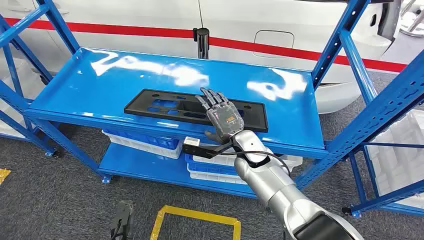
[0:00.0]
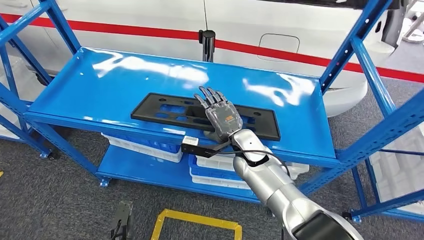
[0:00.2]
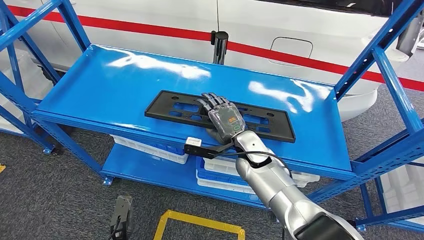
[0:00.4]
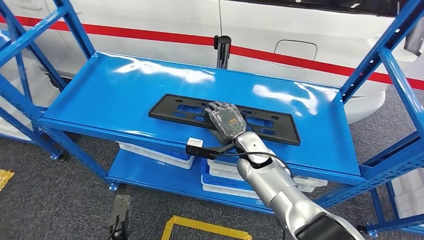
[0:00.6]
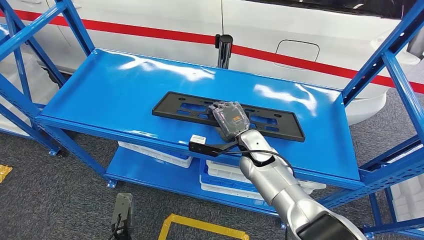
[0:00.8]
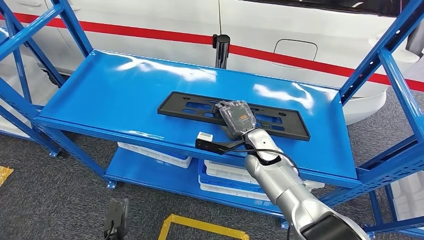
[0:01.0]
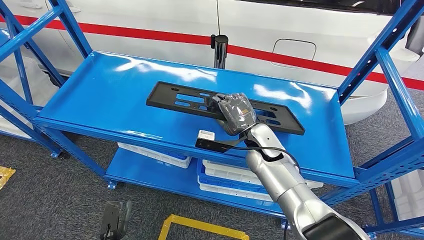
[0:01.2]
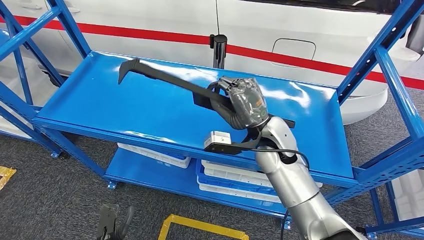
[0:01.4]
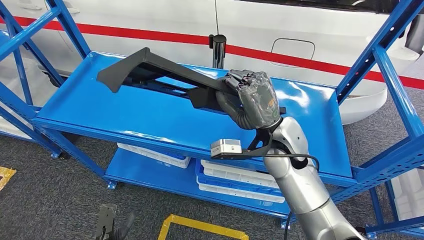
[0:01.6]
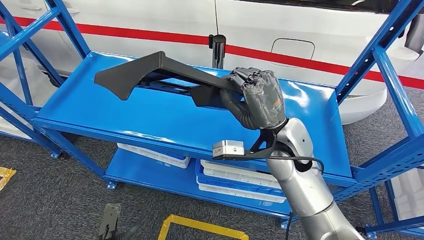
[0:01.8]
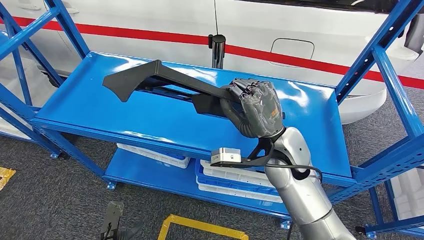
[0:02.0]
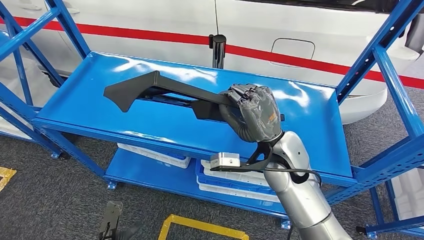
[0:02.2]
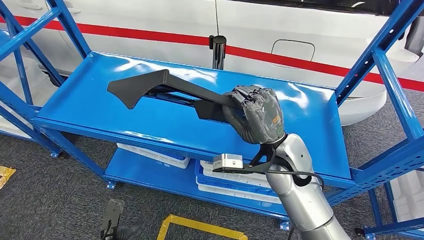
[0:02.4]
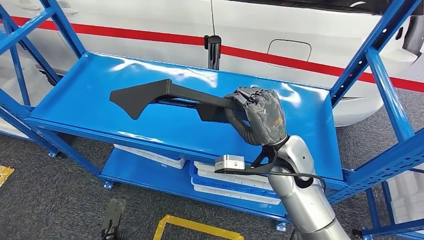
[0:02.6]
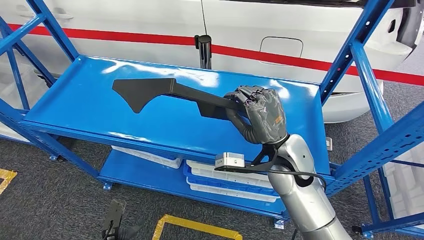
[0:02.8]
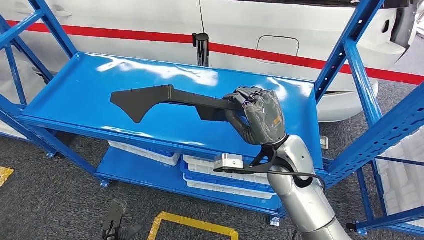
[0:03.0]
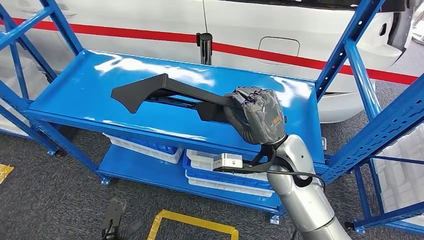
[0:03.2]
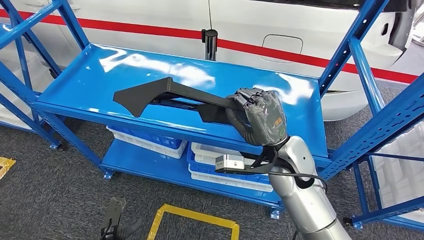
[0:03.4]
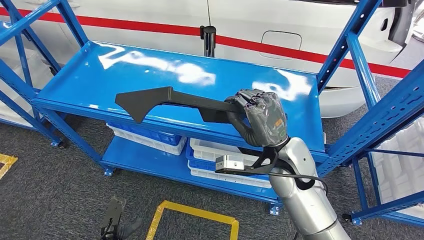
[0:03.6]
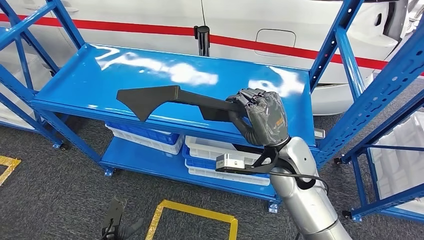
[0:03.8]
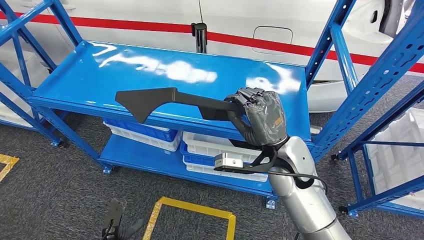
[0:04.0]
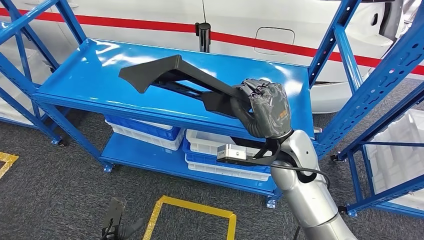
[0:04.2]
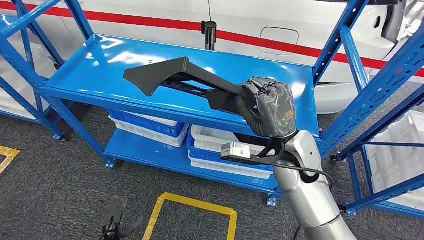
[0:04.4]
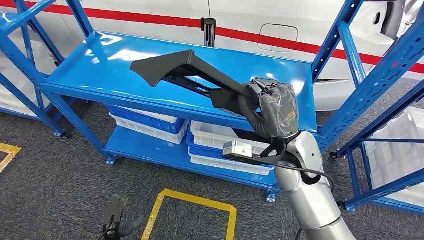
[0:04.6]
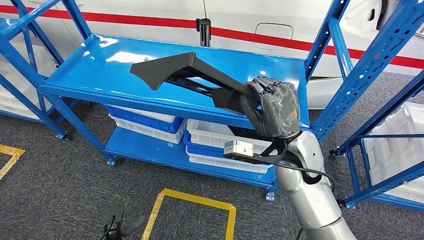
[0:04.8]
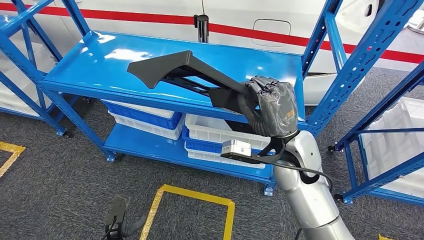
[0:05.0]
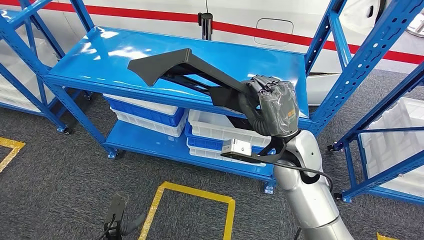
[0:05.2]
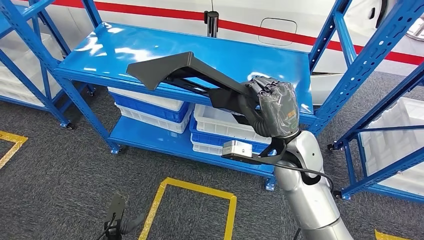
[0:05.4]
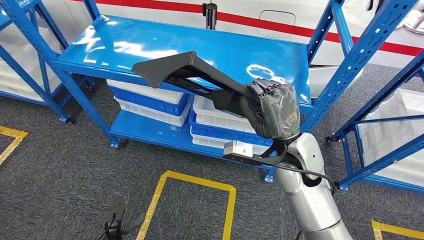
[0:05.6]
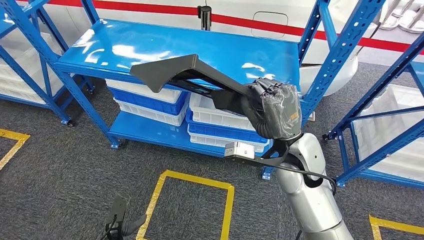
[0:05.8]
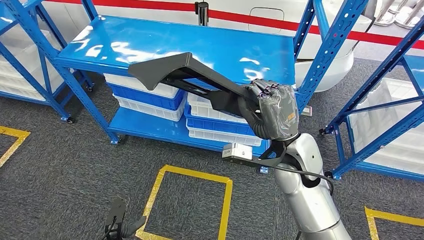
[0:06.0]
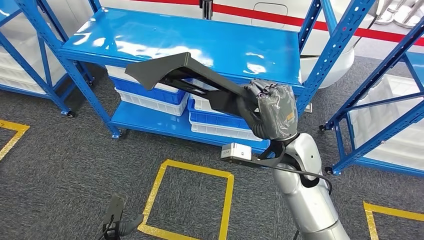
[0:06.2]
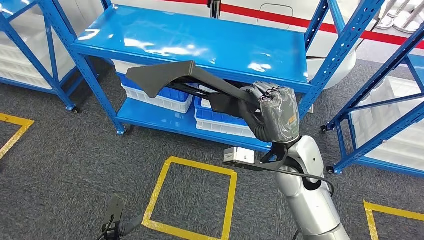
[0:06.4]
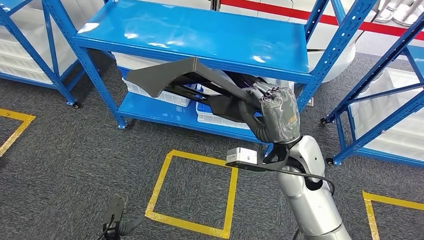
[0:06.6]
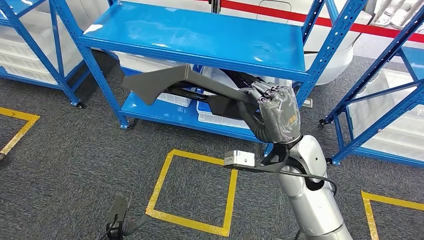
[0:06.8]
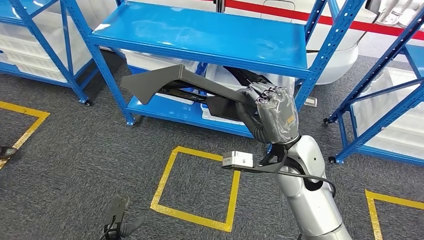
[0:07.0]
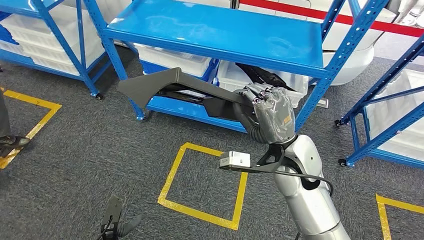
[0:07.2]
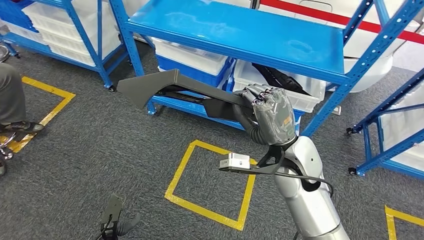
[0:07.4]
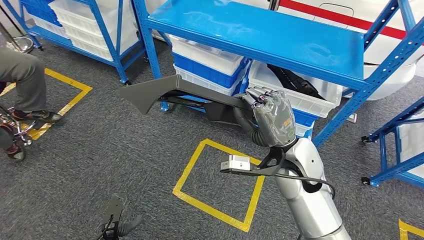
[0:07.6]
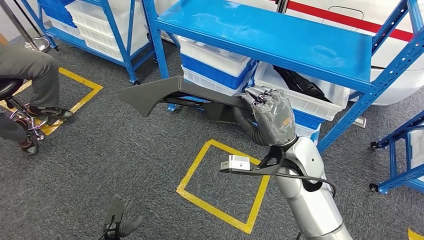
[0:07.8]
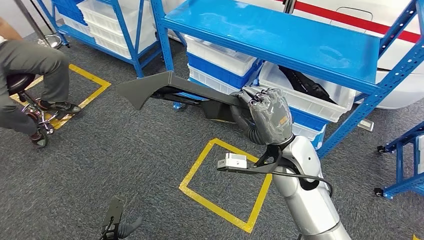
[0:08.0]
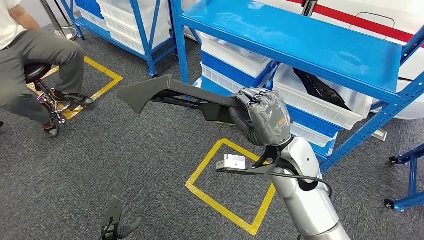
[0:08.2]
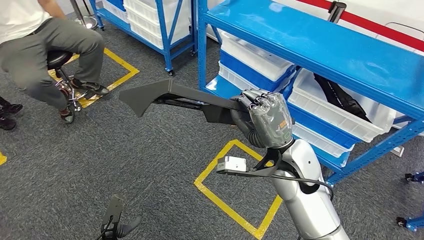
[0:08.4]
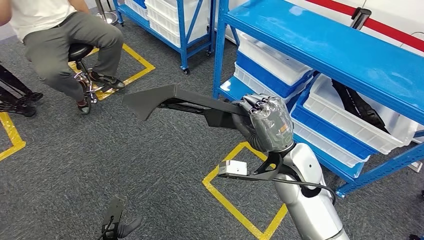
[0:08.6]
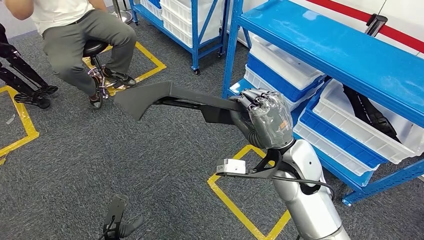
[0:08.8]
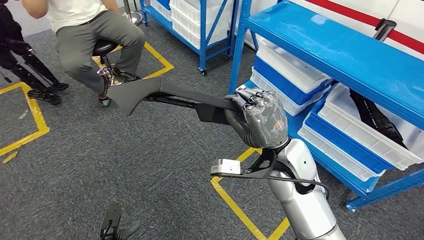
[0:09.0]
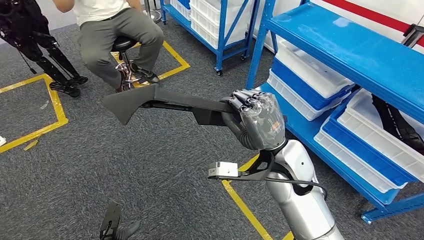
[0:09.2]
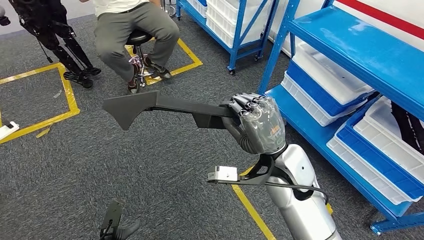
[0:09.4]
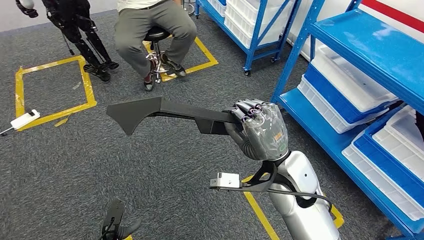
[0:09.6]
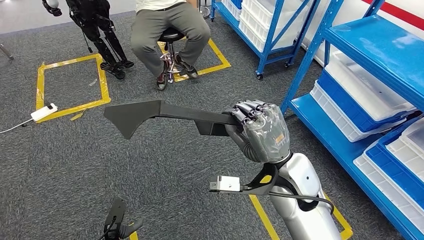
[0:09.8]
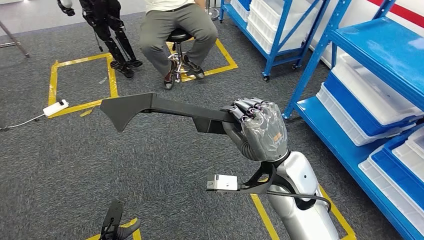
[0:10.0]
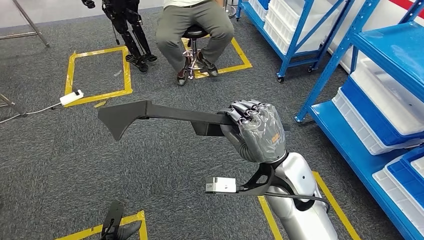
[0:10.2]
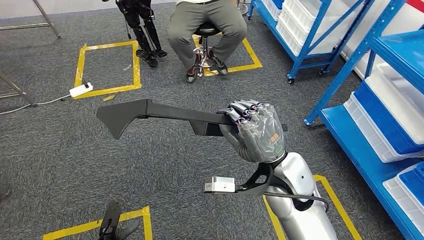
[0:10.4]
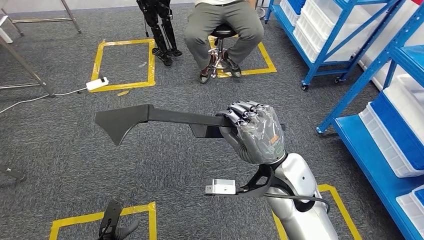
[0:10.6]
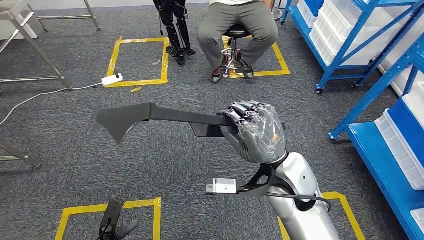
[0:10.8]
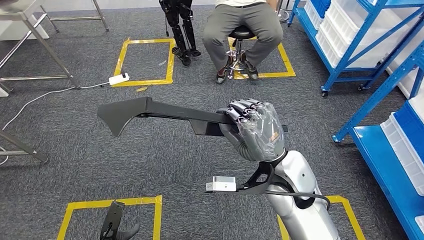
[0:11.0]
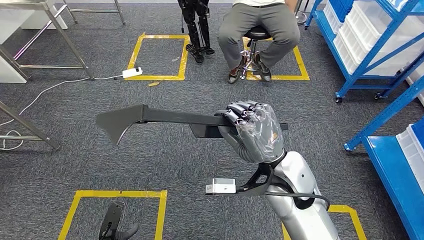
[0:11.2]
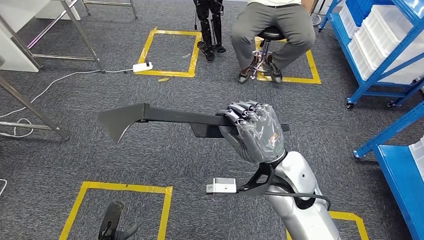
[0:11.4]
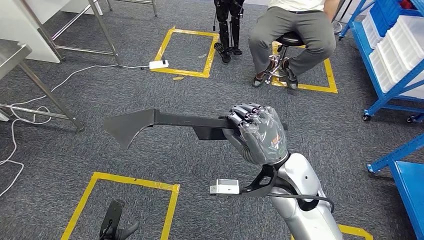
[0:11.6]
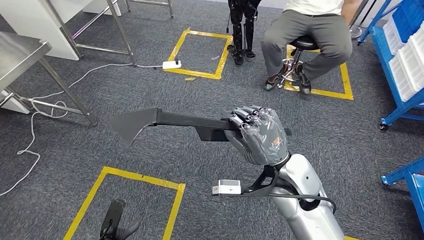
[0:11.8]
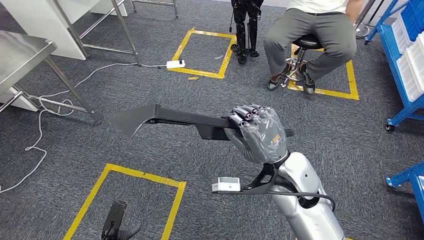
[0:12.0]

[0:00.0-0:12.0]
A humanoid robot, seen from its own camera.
Step, 0:00.0 to 0:07.4: Pick up the large material from the shelf.

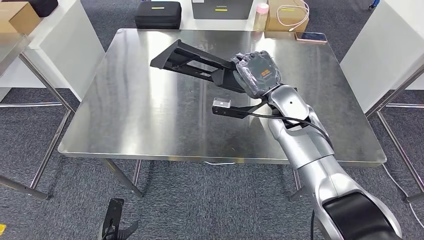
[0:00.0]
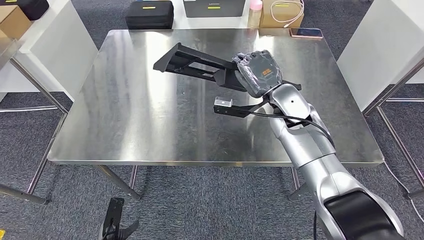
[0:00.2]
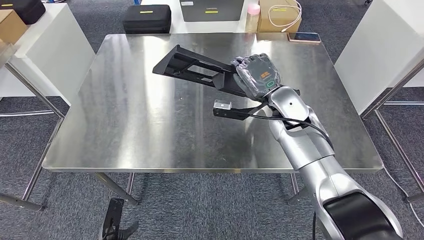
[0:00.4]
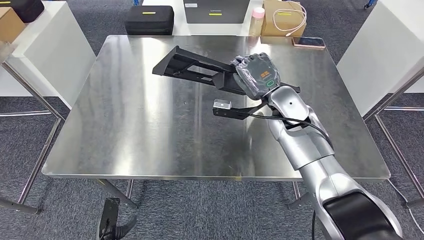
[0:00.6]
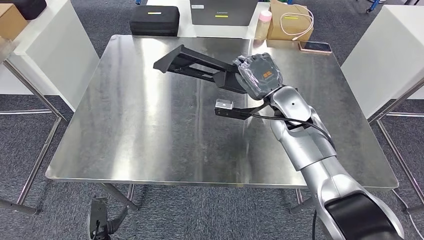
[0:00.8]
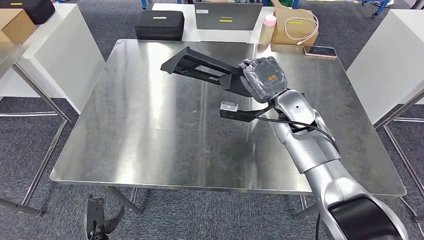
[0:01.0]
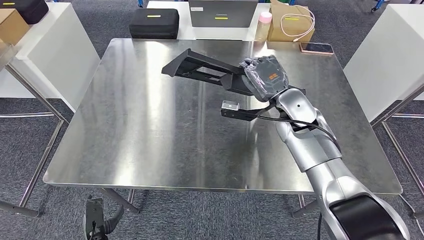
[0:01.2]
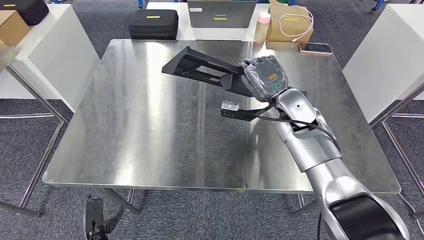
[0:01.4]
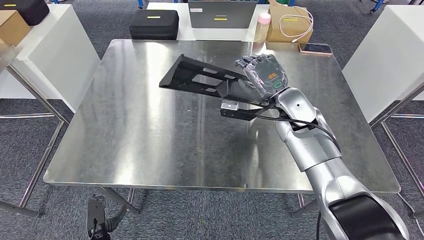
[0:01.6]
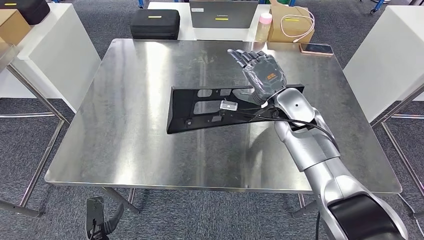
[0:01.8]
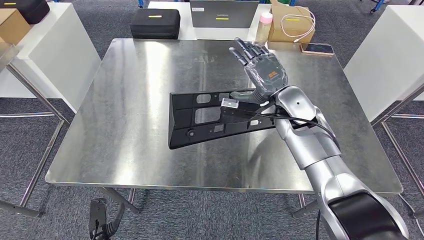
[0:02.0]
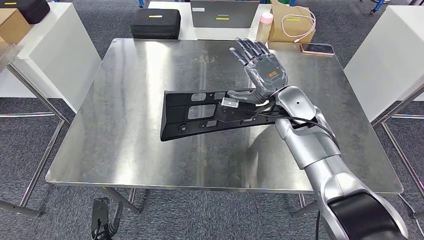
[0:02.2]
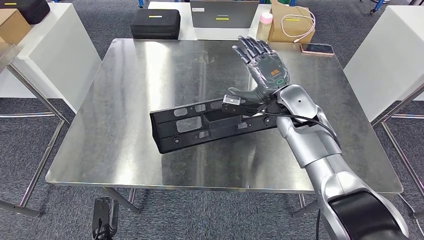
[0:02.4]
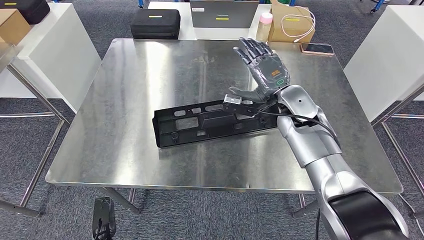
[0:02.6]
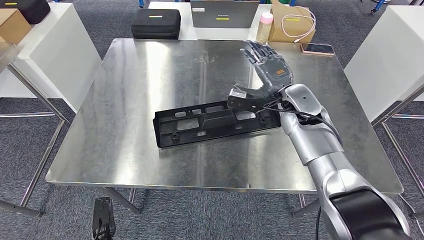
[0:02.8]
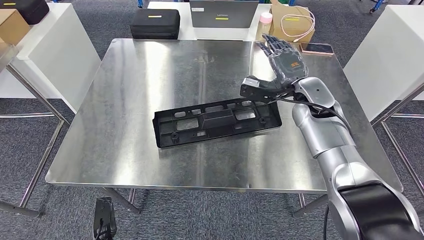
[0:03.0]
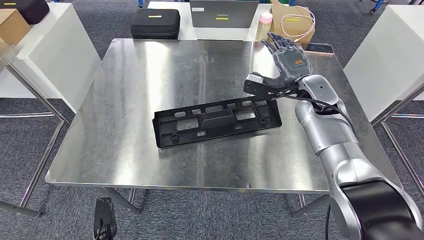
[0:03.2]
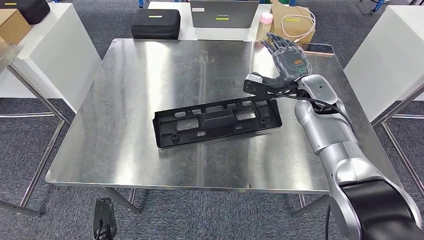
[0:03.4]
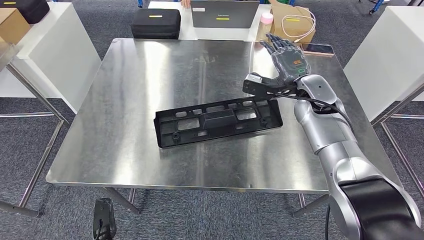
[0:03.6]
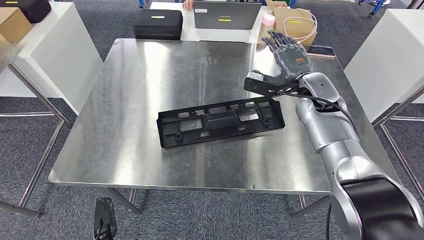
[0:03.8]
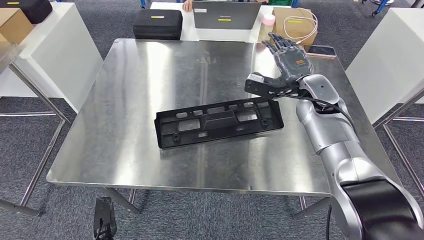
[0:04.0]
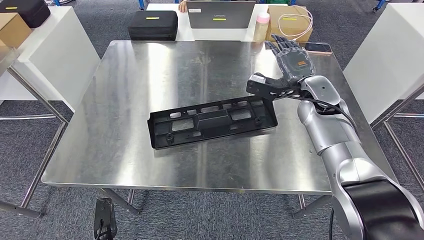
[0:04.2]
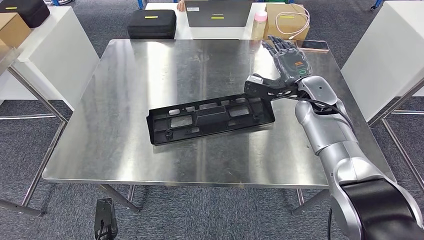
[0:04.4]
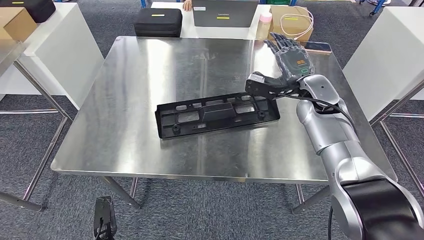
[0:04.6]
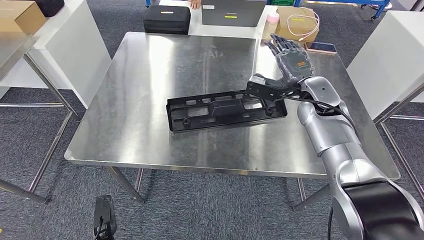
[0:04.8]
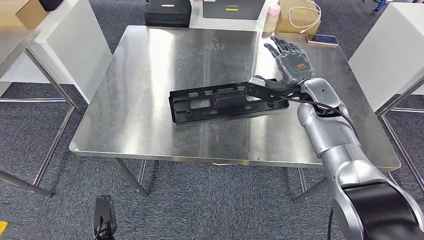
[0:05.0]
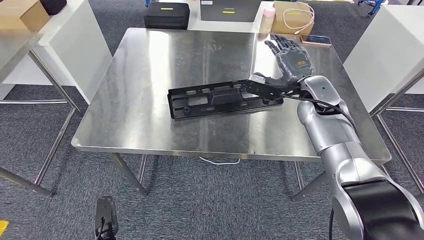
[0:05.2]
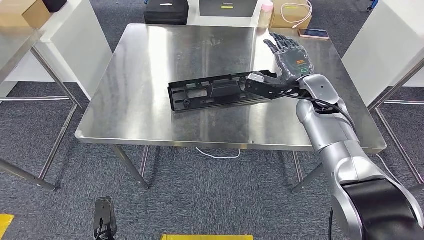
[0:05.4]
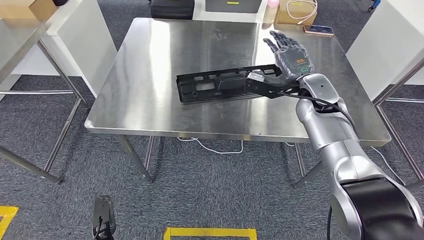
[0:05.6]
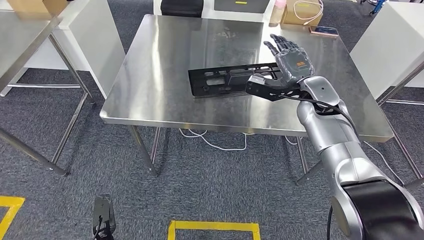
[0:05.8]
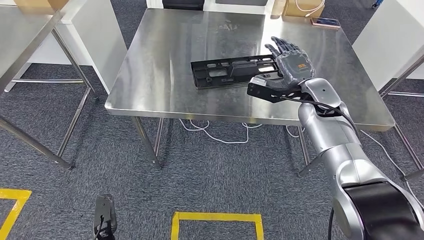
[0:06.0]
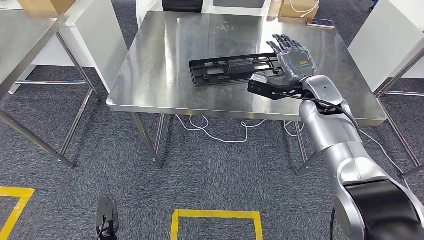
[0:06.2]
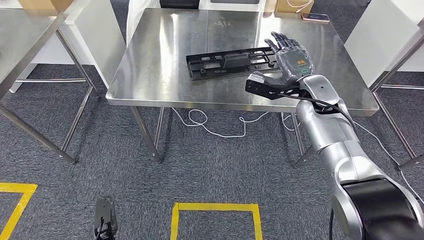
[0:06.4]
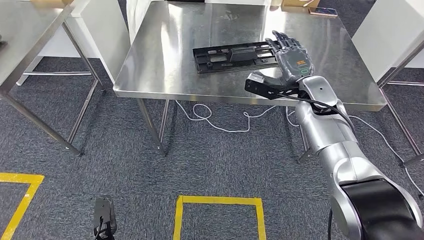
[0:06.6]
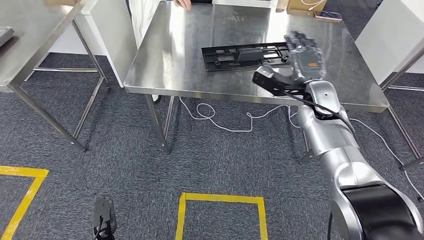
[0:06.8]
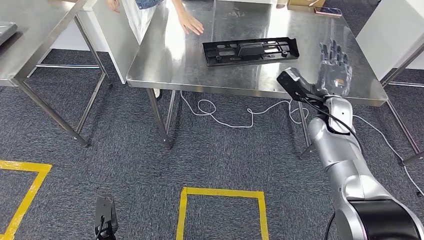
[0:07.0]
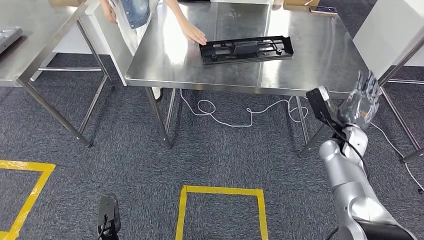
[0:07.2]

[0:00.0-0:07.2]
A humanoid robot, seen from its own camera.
Step, 0:00.0 to 0:03.2: Insert the large material into the corresponding slot on the workbench.
